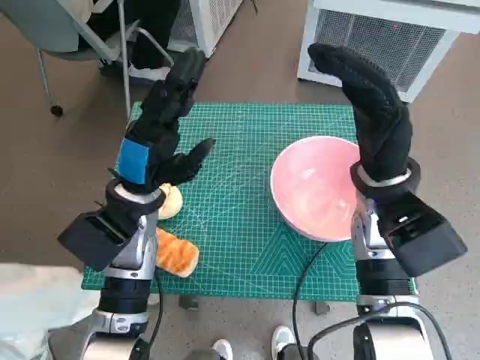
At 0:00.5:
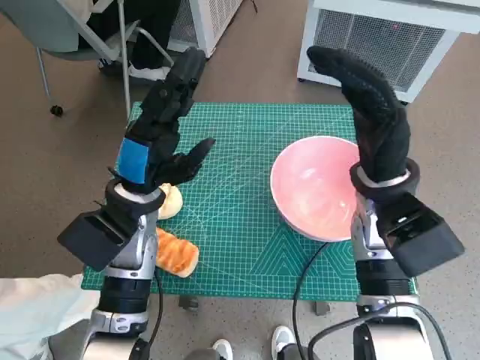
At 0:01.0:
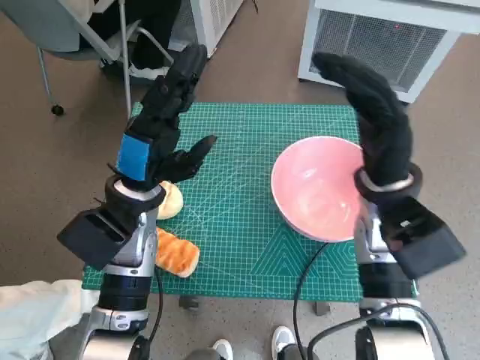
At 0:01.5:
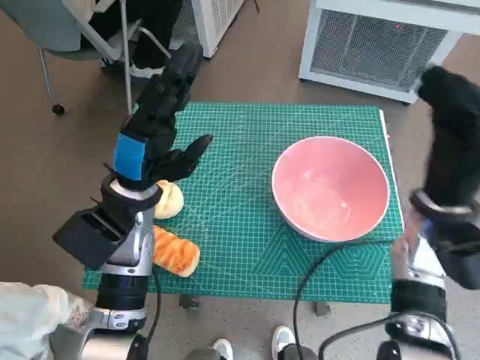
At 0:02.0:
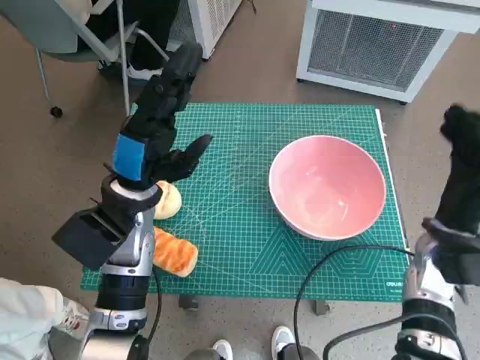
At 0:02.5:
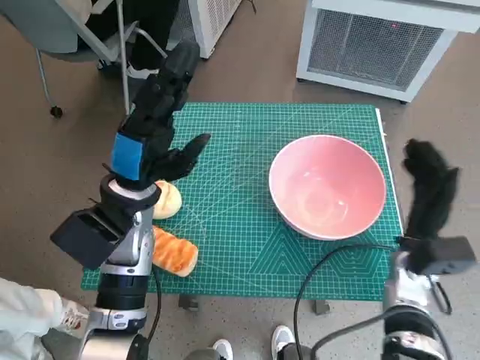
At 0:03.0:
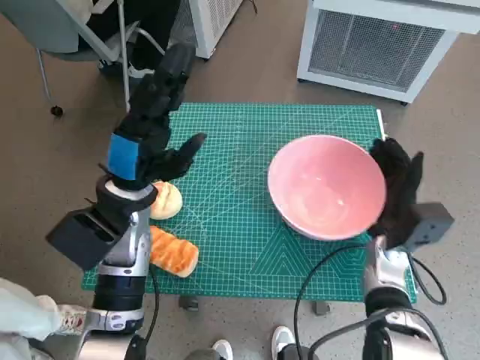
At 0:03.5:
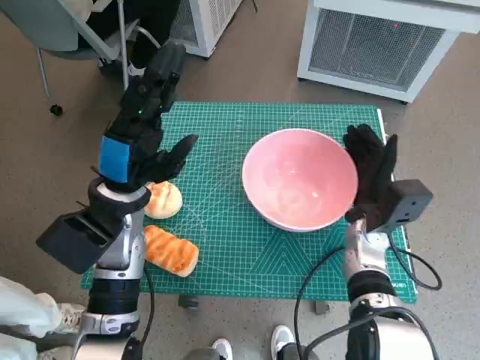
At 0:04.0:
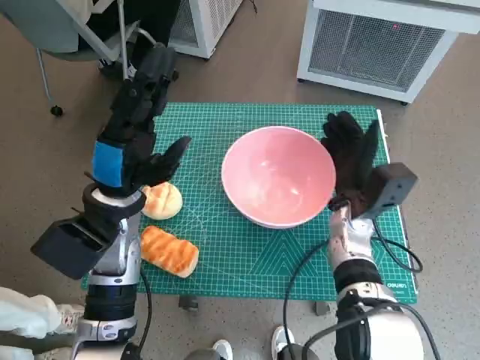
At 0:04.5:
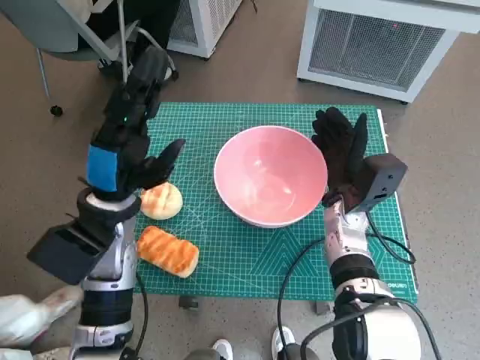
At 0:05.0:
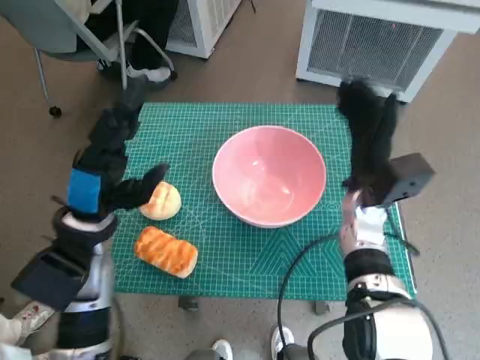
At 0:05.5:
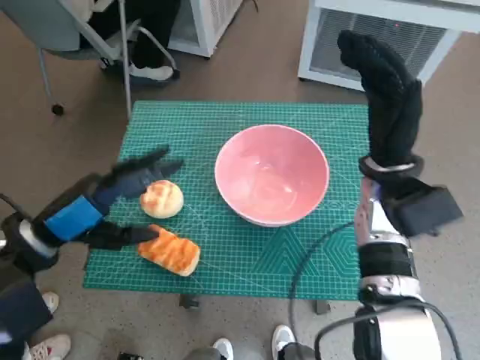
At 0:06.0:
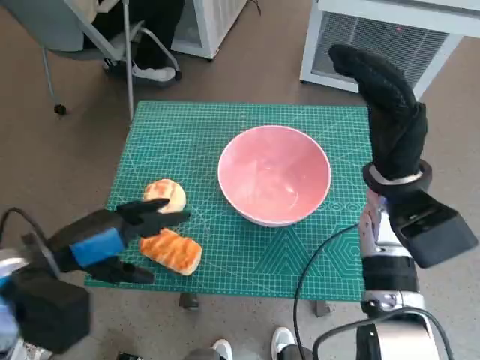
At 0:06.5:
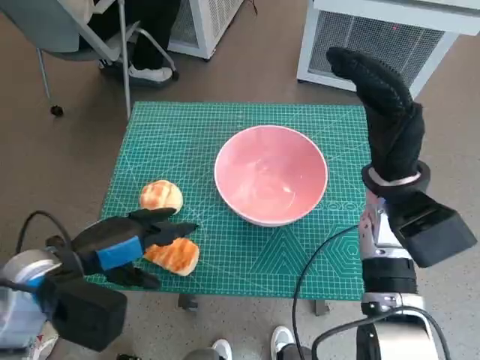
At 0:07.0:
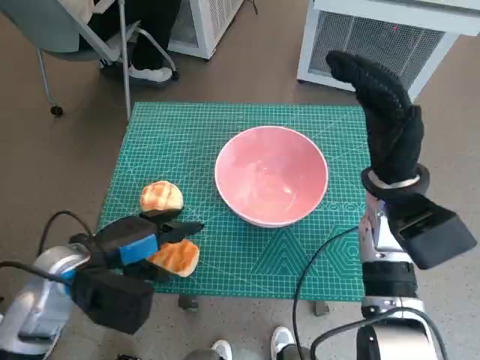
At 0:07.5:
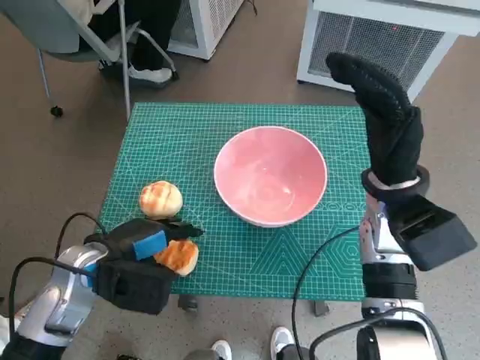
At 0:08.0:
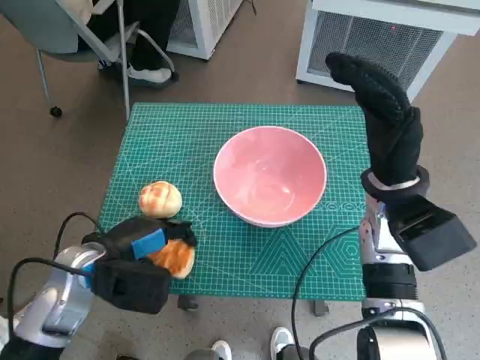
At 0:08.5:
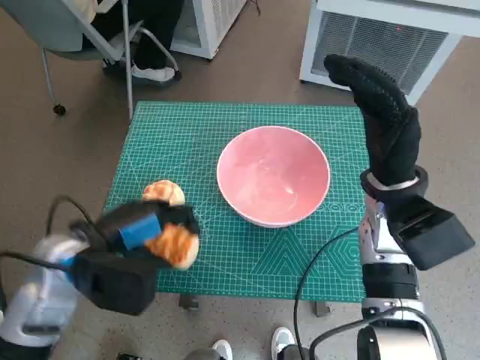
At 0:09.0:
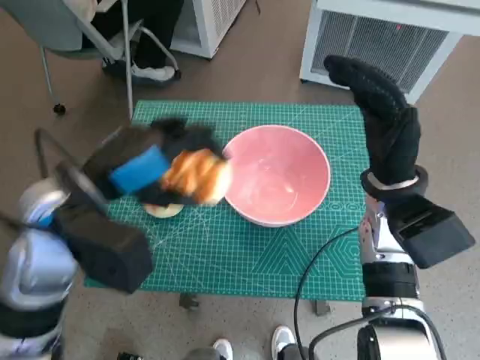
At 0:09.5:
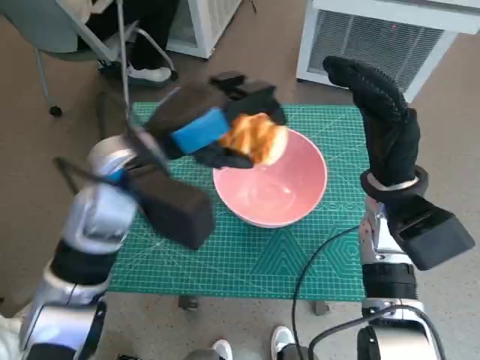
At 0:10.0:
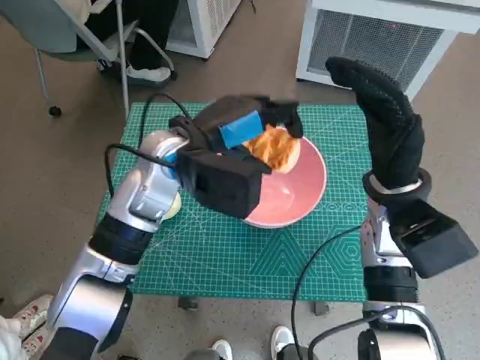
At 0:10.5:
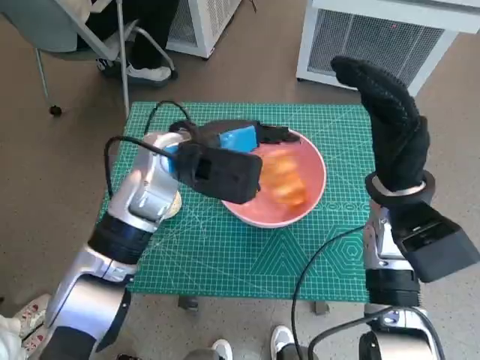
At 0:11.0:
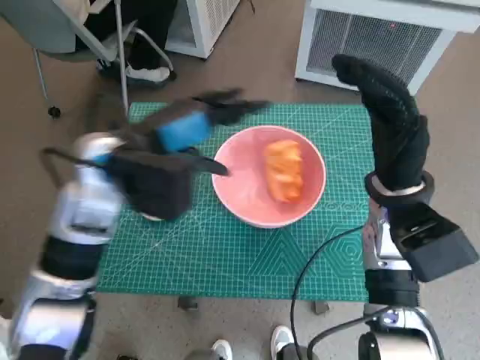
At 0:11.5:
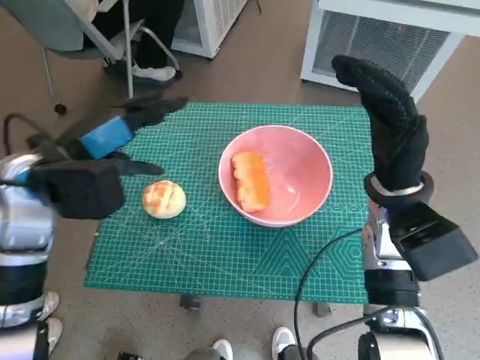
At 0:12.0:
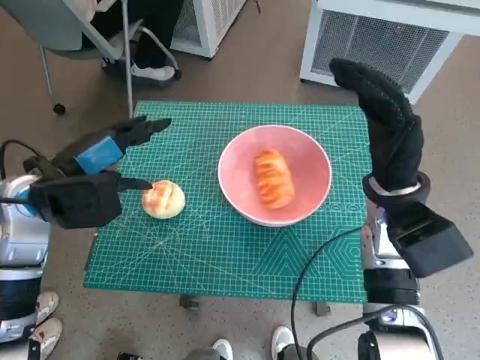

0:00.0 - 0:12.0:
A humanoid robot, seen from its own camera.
Task of the whole recording: Push the bowl to the center of the table and put the bread into the bowl.
Step, 0:00.0 - 0:04.5: Move the pink bowl to the center of table with right hand.
Step, 0:05.0 - 0:07.5: Grasp the long bread with left hand.
Step, 0:08.0 - 0:10.5: Place the long bread in pink bowl with left hand.
0:02.0 - 0:04.0: The right hand heads to the left, covering approximately 10 cm.
0:04.0 - 0:06.0: The right hand shifts about 10 cm upward. Meanwhile the left hand goes roughly 10 cm backward and to the left.
0:06.0 - 0:08.0: The left hand goes some 5 cm downward.
0:08.0 - 0:10.0: The left hand shifts some 20 cm to the right, upward and forward.
0:10.0 - 0:12.0: The left hand is displaced to the left by approximately 15 cm.

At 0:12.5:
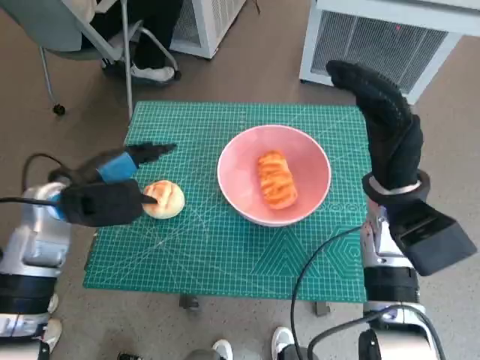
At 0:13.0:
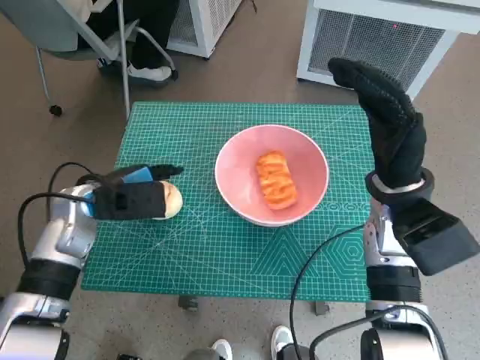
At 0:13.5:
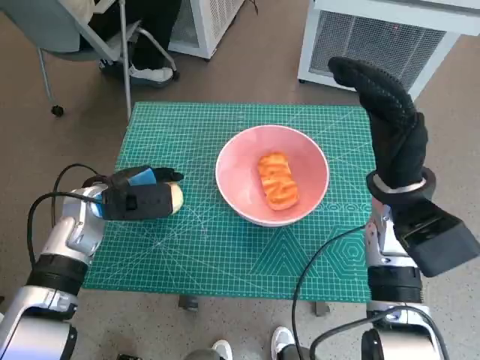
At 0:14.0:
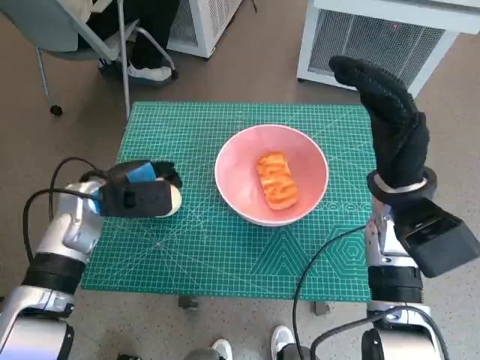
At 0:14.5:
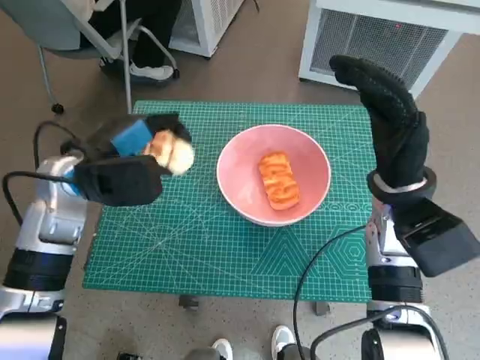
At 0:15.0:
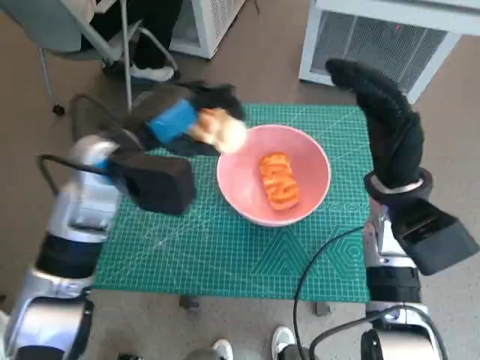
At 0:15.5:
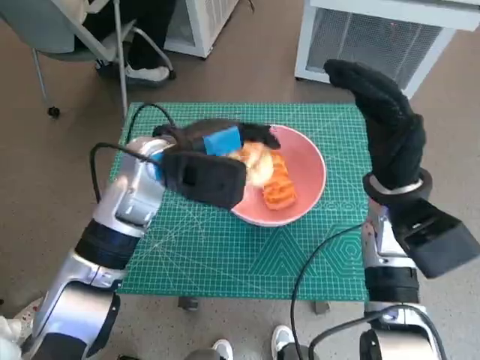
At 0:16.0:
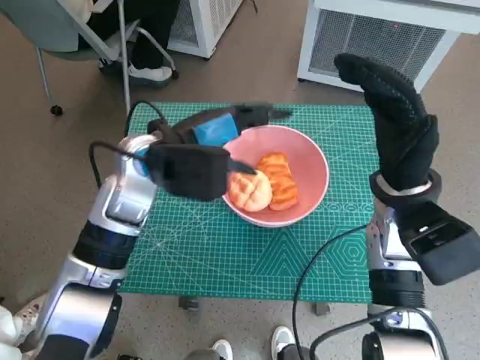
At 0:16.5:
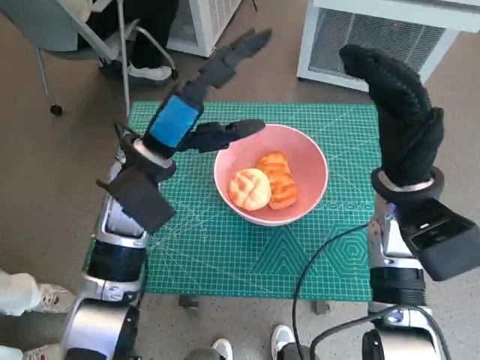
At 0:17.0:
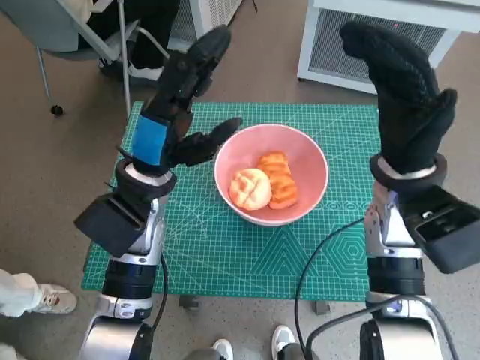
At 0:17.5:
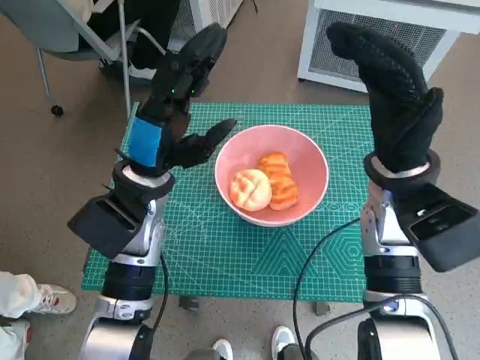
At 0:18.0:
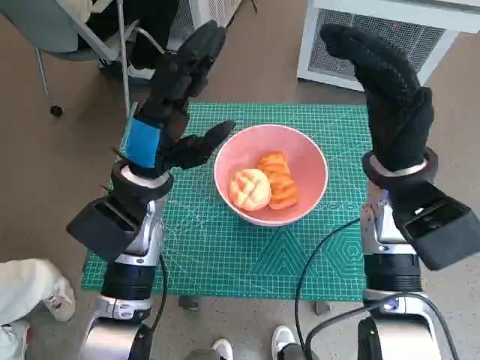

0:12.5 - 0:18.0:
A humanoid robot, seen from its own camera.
Task of the whole recording: Push the bowl to the center of the table and put the bread into the bowl.
Step, 0:14.0 - 0:16.0: Place the round bread in pink bowl with left hand.
0:14.5 - 0:16.0: The left hand is displaced to the right by roughly 10 cm.
0:16.0 - 0:18.0: The left hand moves approximately 5 cm.

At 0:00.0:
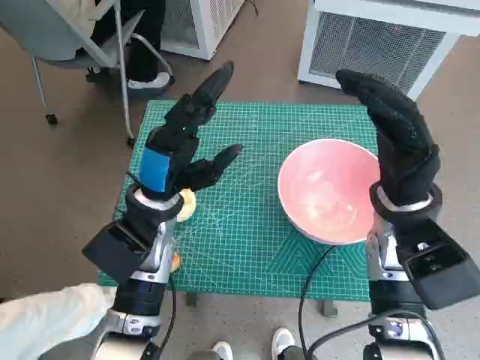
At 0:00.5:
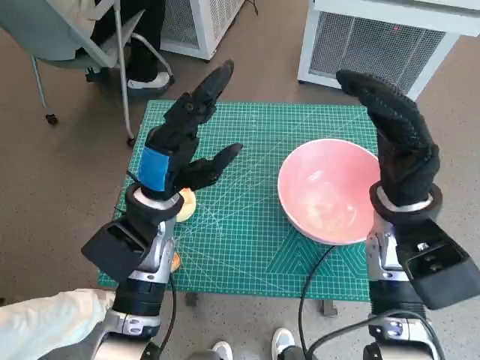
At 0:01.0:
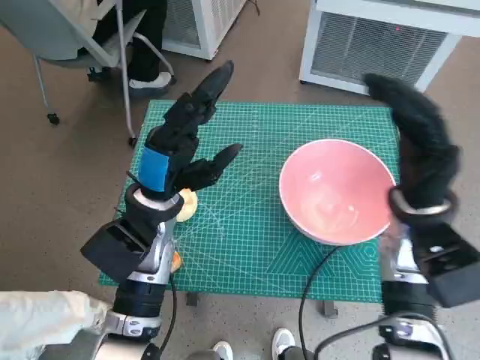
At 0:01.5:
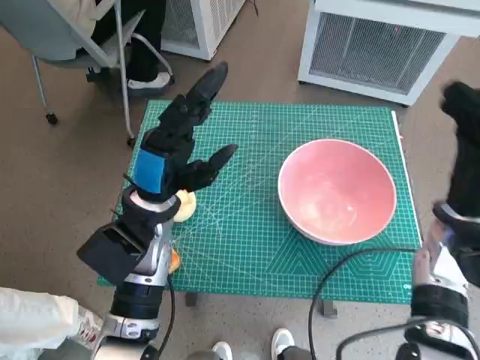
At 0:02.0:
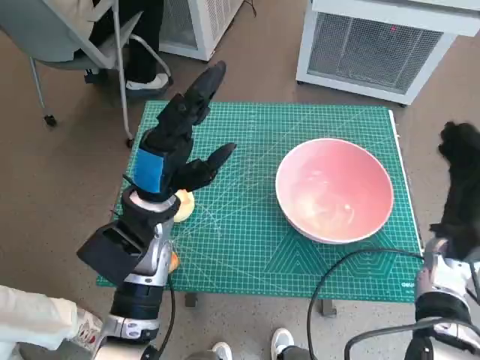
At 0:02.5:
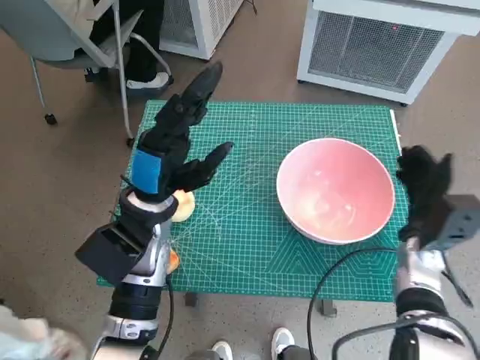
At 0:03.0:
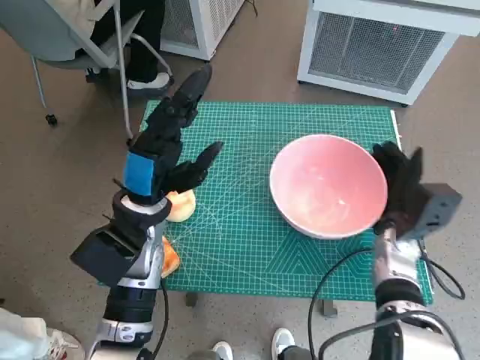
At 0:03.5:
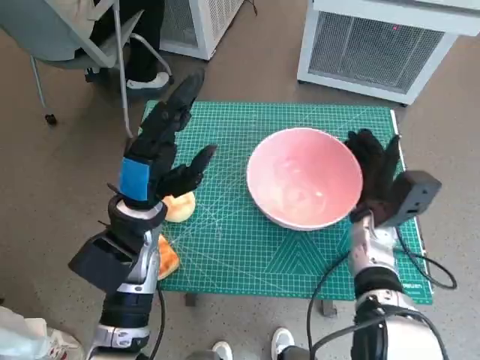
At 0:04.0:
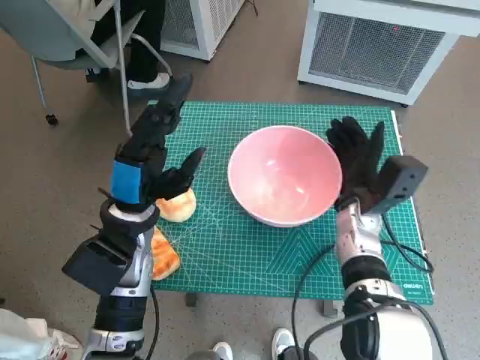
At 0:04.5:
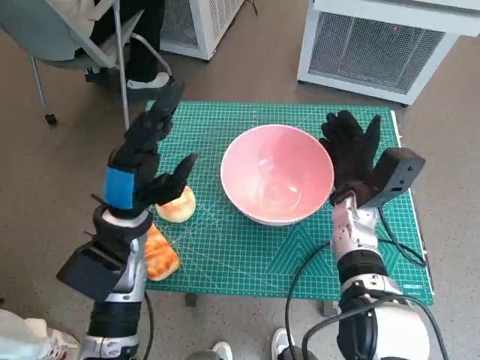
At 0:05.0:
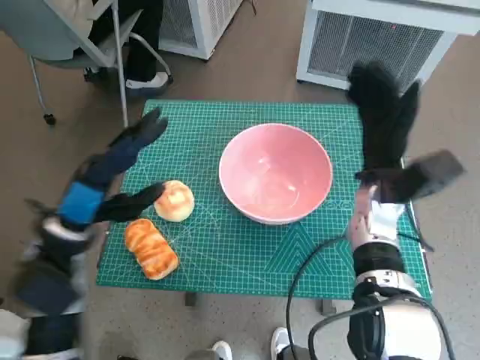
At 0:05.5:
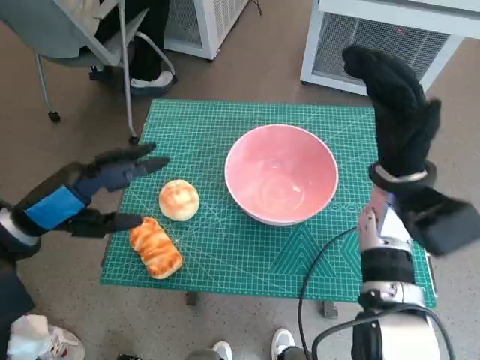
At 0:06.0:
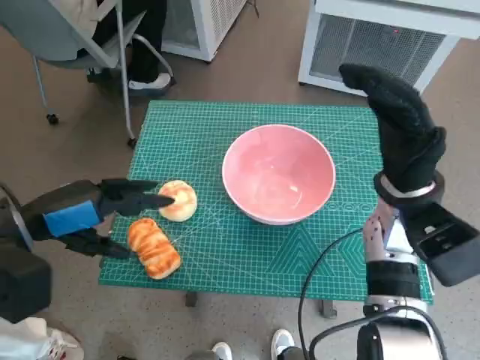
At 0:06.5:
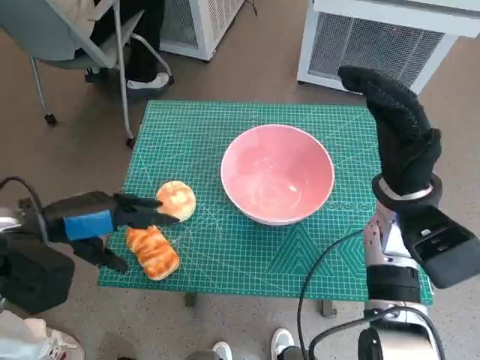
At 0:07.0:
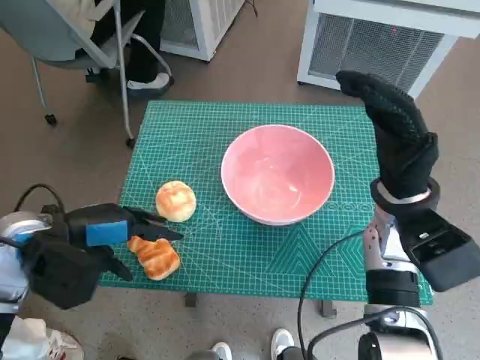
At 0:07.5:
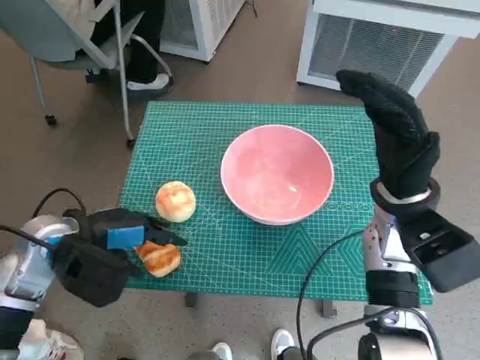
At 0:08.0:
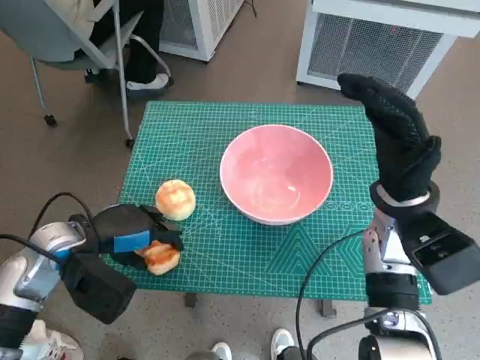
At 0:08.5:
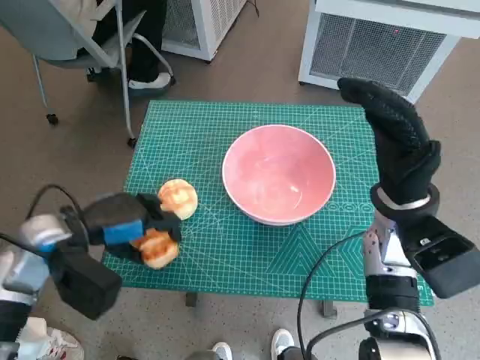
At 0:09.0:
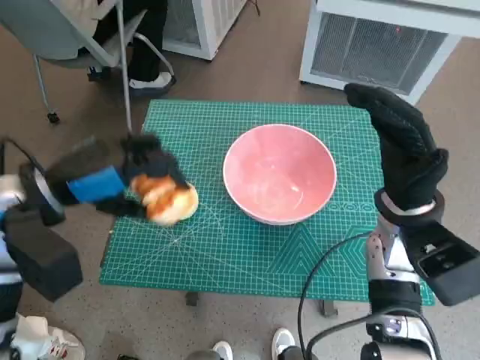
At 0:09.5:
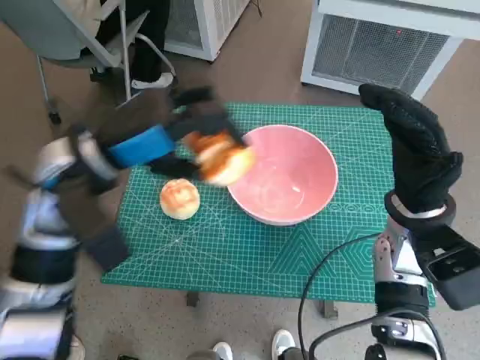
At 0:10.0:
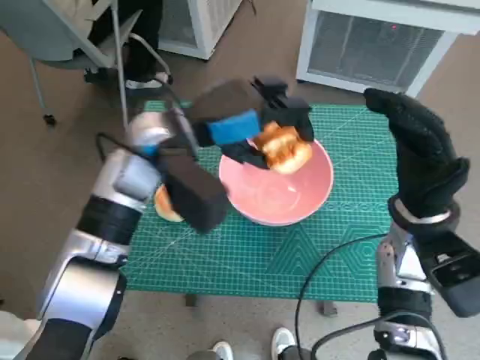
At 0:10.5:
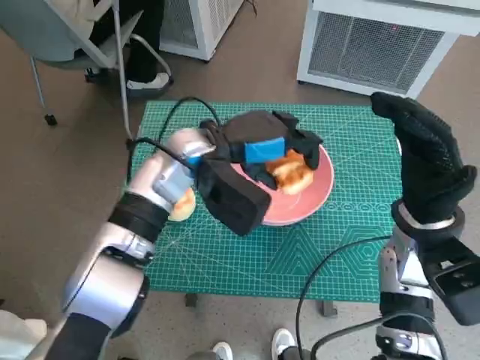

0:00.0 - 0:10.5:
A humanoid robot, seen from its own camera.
Task of the whole recording: Push the bowl to the center of the table and put the bread into the bowl.
Step, 0:00.0 - 0:04.5: Move the pink bowl to the center of table with right hand.
Step, 0:05.0 - 0:07.5: Grasp the long bread with left hand.
0:02.0 - 0:04.0: The right hand moves to the left, some 10 cm.
0:04.0 - 0:06.5: The right hand shifts roughly 10 cm upward; the left hand travels to the left and upward by roughly 10 cm.
0:06.5 - 0:08.5: The left hand shifts roughly 5 cm downward.
0:08.5 - 0:10.5: The left hand heads to the right and forward, covering some 20 cm.
